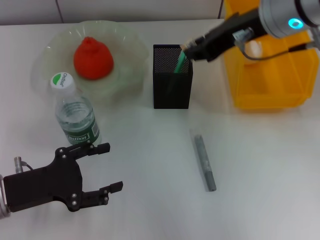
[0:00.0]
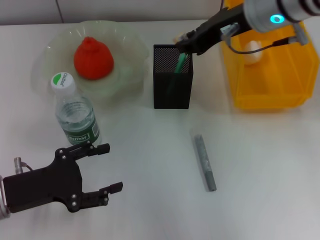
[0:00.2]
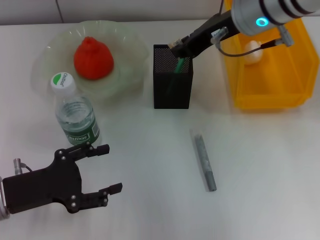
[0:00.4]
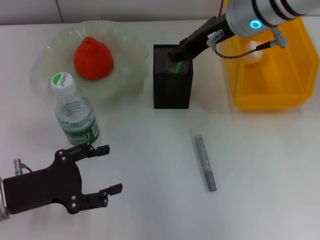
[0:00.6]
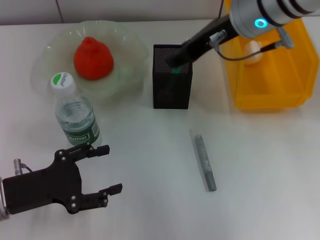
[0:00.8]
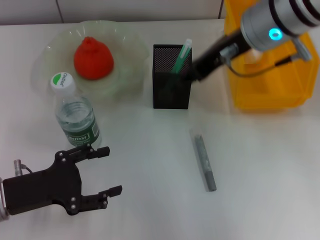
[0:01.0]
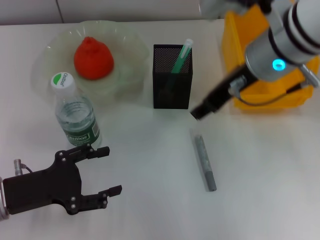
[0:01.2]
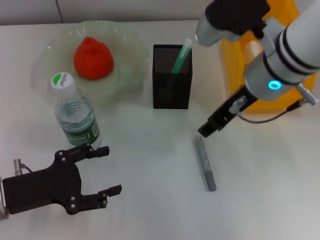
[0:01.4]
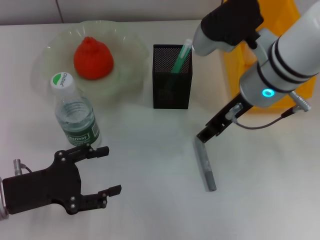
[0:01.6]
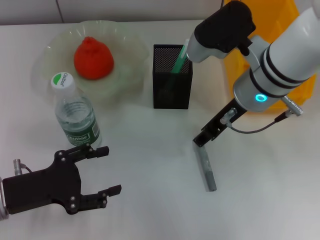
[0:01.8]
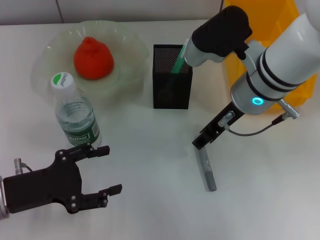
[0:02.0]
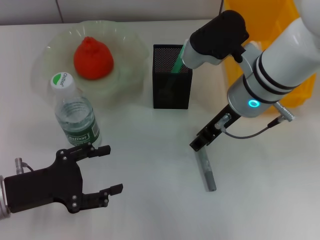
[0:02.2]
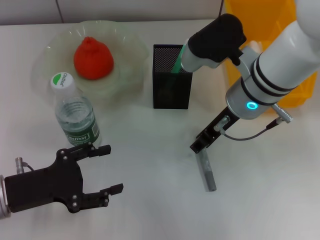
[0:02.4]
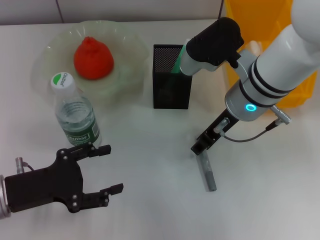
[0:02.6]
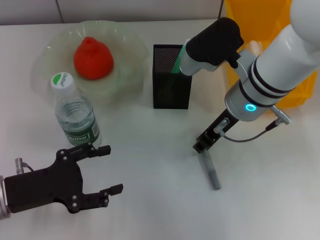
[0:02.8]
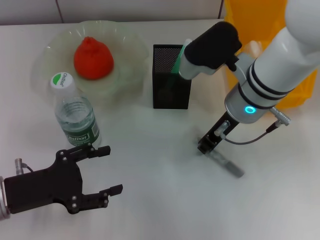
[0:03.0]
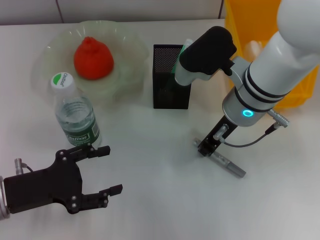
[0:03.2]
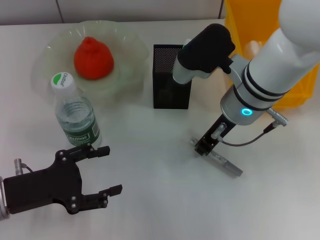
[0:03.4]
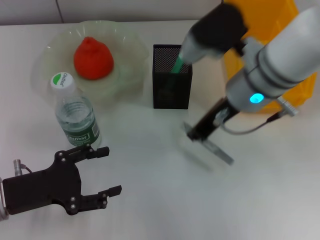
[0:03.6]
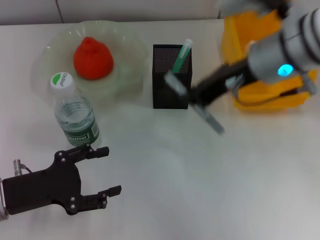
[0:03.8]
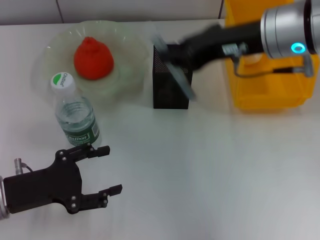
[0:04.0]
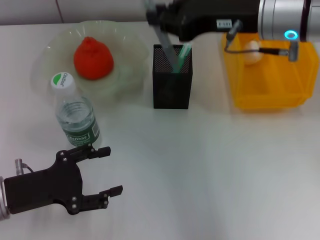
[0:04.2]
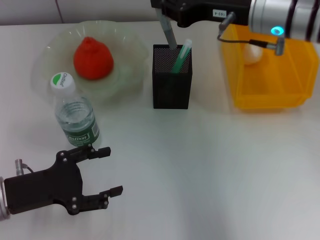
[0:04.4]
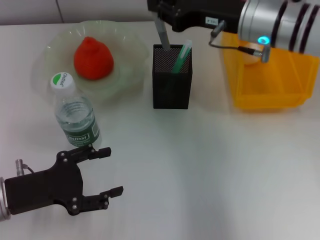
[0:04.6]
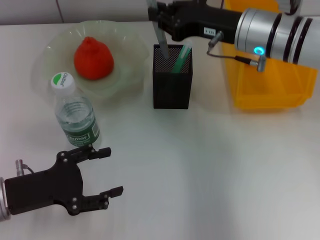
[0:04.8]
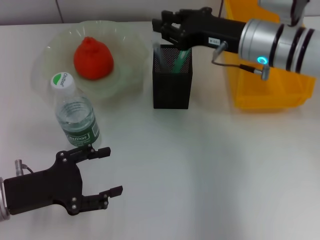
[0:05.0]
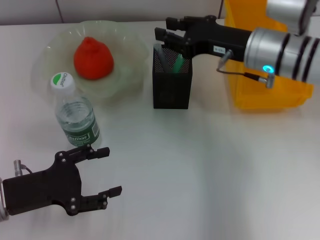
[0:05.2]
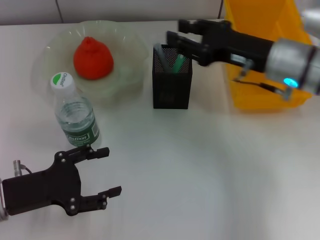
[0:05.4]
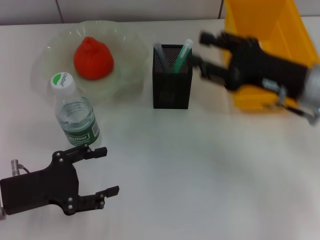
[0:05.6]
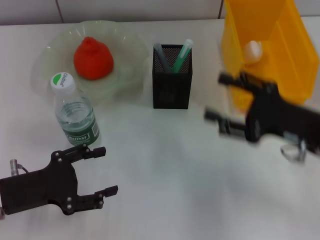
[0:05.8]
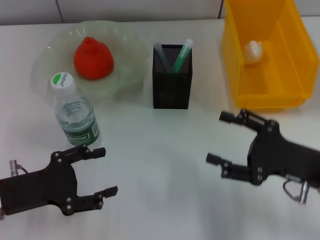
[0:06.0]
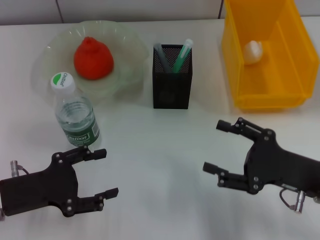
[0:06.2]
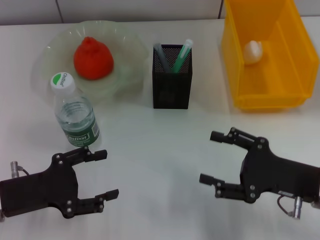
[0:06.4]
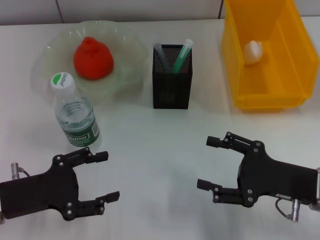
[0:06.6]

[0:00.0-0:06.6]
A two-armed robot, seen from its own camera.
Step, 0:00.8 to 0:03.2: Grab the gray glue with the right hand.
Step, 0:03.4 to 0:04.8: Place the gray glue into the pen holder with the right hand.
0:00.0 to 0:01.6: The right gripper heads downward, covering roughly 10 cm, and opens up.
0:01.6 to 0:03.2: The right gripper closes its fingers.
0:03.2 to 0:05.0: The right gripper is displaced to the right by about 5 cm, and reaches some 10 cm upward, then returns.
0:05.0 to 0:06.6: The right gripper heads backward, downward and to the right, covering approximately 20 cm, and opens up.

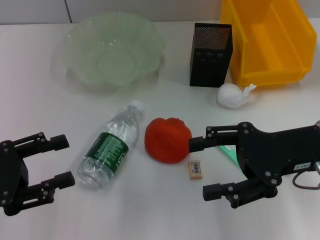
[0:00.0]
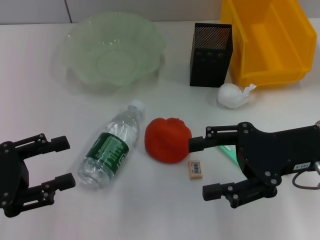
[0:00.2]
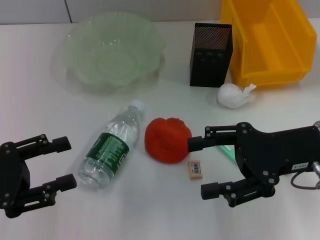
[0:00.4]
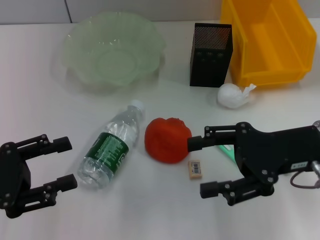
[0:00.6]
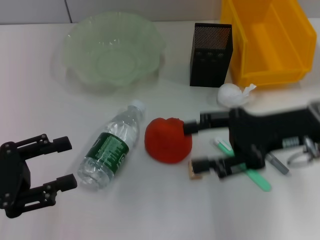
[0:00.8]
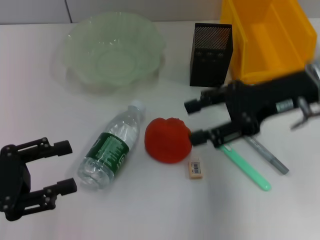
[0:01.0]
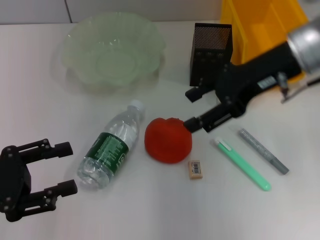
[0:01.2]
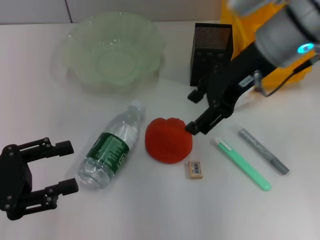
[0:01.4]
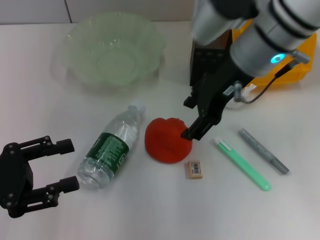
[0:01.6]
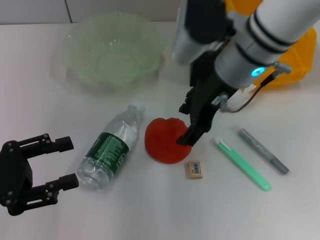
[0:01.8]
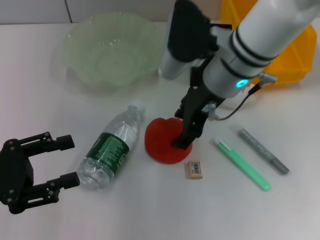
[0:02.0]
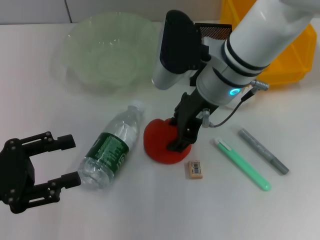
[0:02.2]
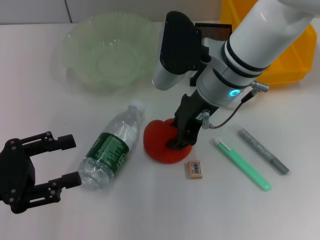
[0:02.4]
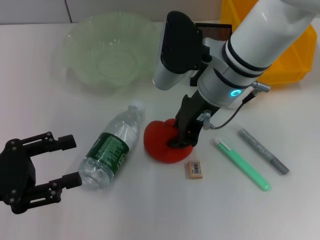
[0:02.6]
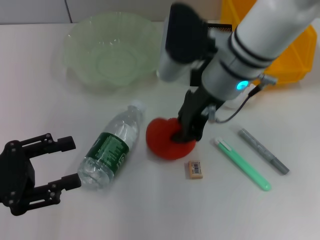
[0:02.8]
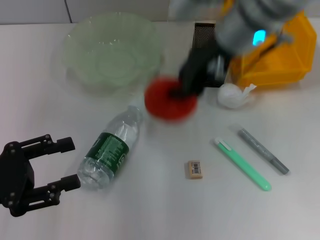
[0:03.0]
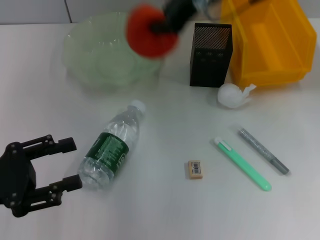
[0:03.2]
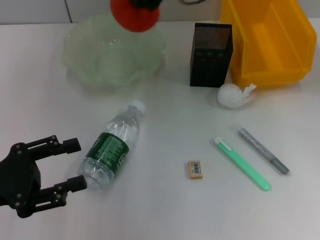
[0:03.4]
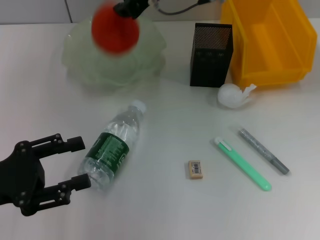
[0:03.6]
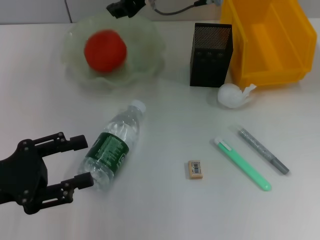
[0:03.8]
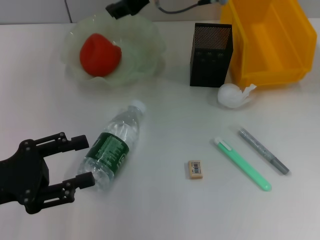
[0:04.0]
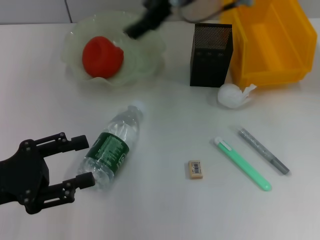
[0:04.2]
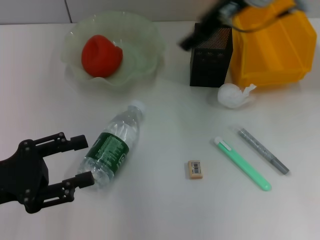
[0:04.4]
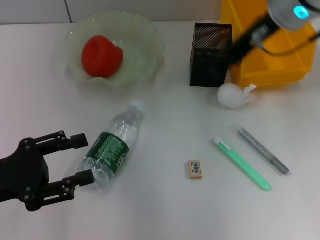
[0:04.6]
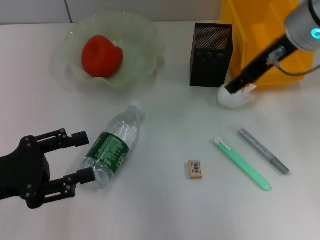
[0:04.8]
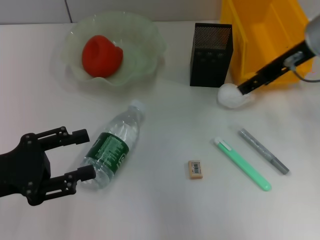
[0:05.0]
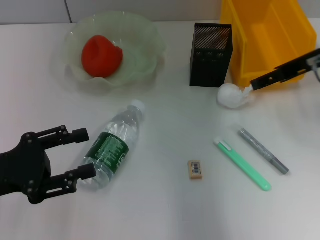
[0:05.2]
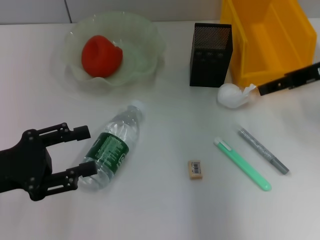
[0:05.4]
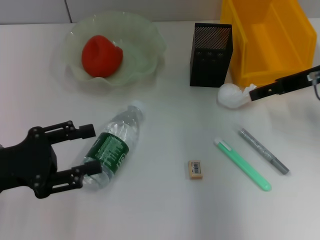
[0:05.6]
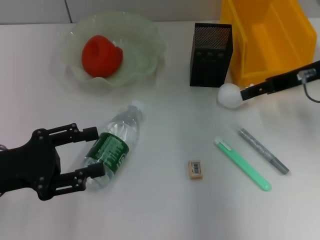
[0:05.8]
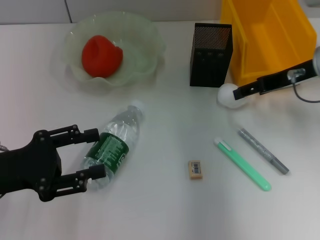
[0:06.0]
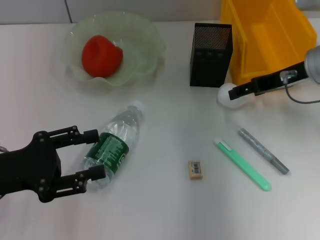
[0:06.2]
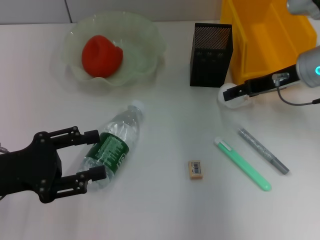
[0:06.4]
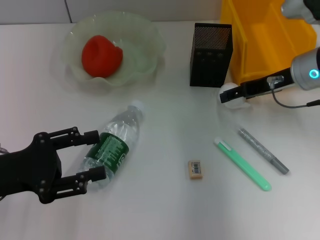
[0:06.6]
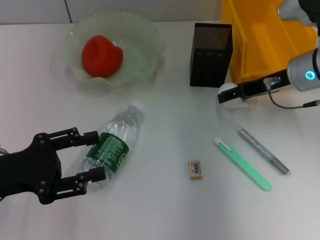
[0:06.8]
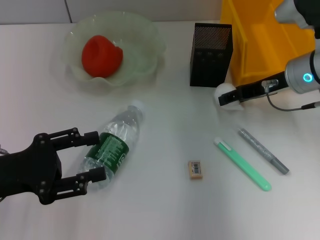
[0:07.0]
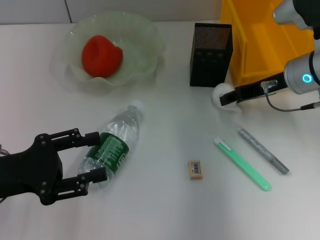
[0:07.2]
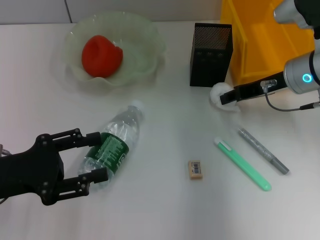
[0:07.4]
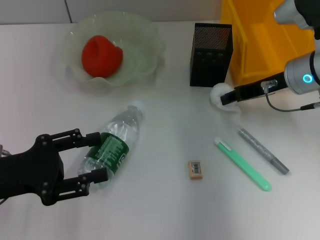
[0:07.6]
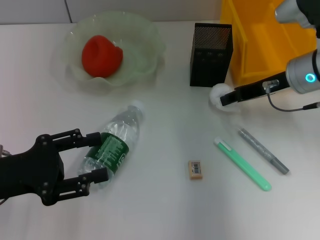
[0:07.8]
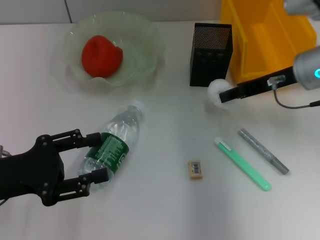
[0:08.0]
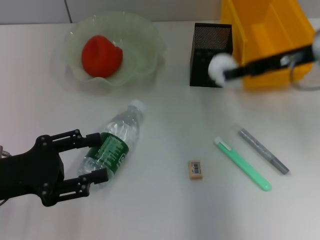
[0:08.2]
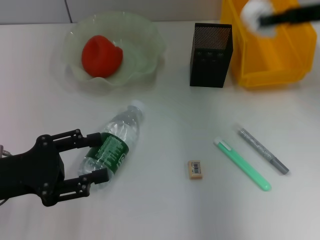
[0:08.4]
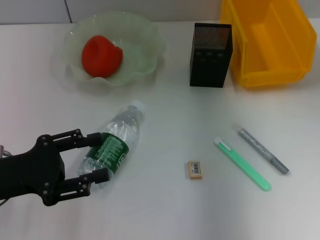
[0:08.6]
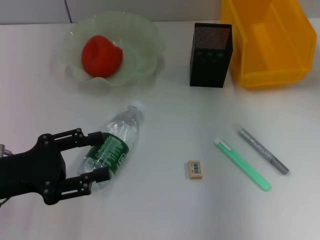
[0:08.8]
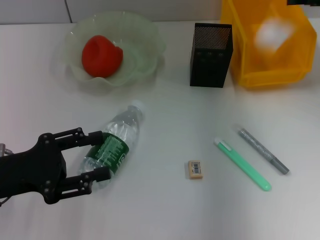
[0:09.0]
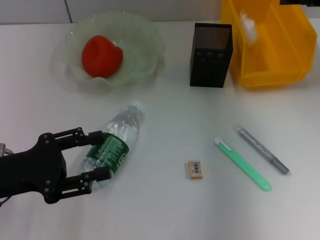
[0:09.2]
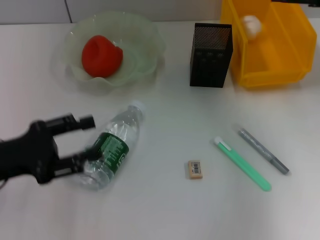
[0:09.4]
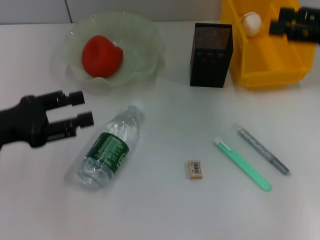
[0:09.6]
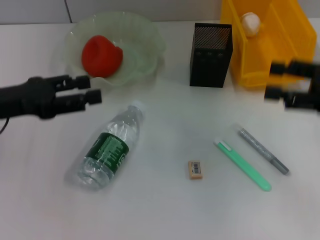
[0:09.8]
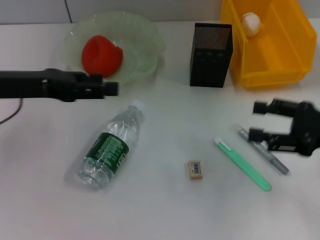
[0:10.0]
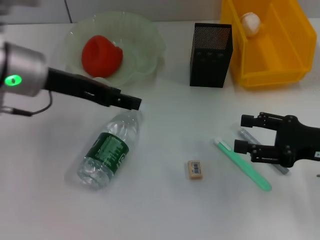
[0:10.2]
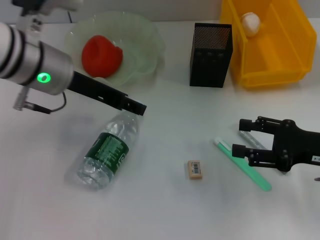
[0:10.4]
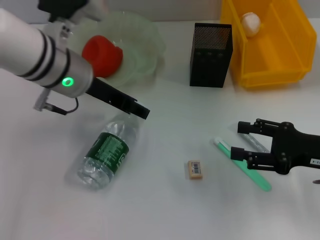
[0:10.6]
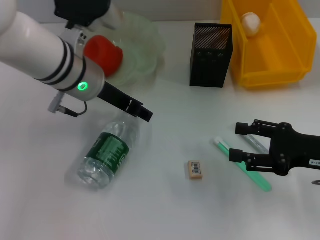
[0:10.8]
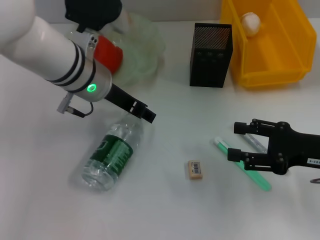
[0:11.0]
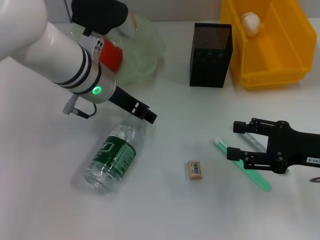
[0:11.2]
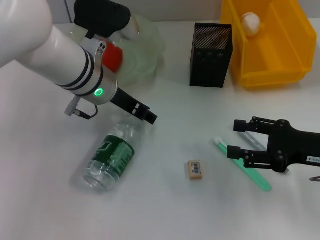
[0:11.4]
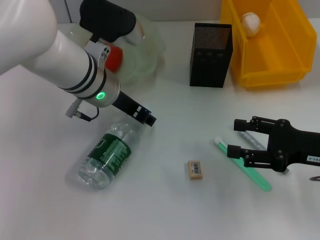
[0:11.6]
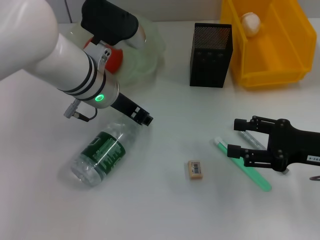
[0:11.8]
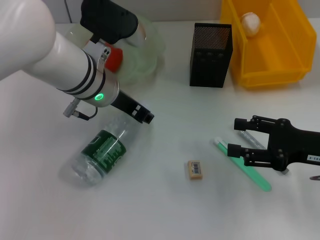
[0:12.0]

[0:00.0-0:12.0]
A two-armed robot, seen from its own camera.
Step, 0:00.0 to 0:02.6: Grab the orange with the right hand.
Step, 0:02.8 to 0:03.8: Place the orange into the fruit bowl with the right hand.
Step, 0:04.0 to 0:07.2: Grab the paper ball with the right hand.
Step, 0:07.4 to 0:09.2: Place the paper ball into the trash can with the right hand.
0:00.0 to 0:01.6: The right gripper heads to the left, forward and upward, covering approximately 15 cm.
0:01.6 to 0:03.0: The right gripper closes up.
0:03.0 to 0:04.4: The right gripper opens up.
0:04.4 to 0:06.0: The right gripper is displaced to the right and downward by approximately 15 cm.
0:06.0 to 0:07.6: The right gripper closes.
0:07.6 to 0:09.0: The right gripper moves upward and to the right, roughly 15 cm.
0:09.0 to 0:10.4: The left gripper goes some 20 cm forward, to the right and upward. The right gripper heads backward and downward, covering approximately 20 cm, and opens.
0:10.4 to 0:12.0: The left gripper shifts approximately 5 cm to the right.

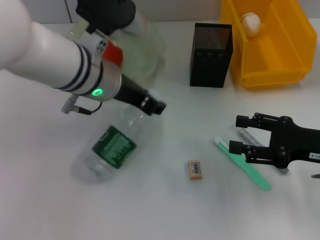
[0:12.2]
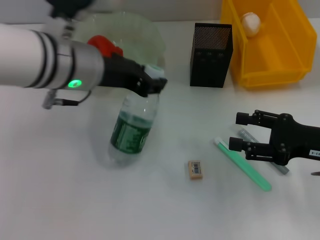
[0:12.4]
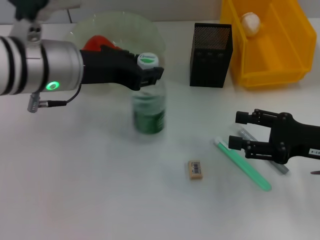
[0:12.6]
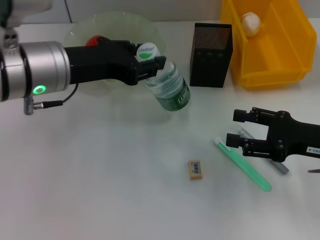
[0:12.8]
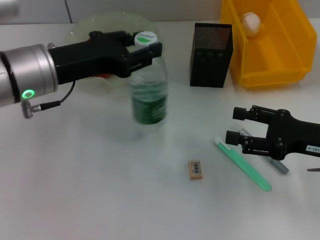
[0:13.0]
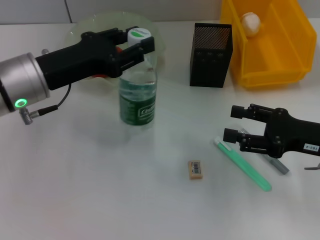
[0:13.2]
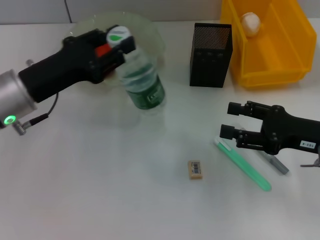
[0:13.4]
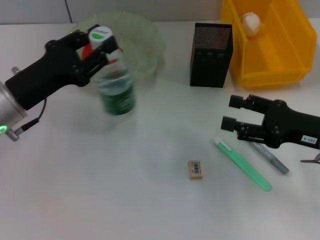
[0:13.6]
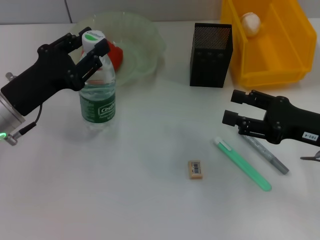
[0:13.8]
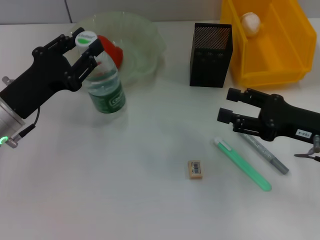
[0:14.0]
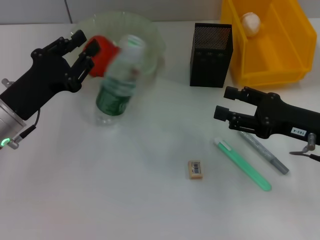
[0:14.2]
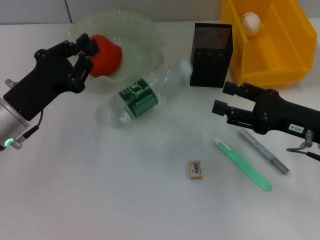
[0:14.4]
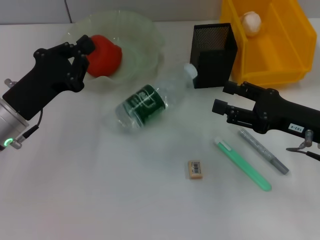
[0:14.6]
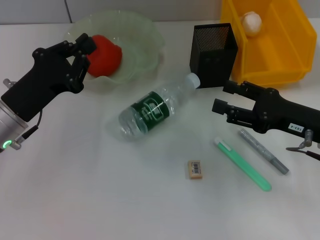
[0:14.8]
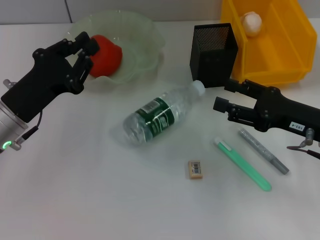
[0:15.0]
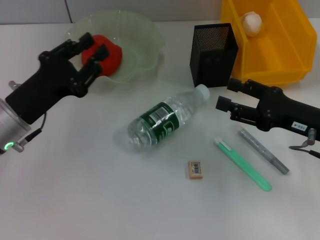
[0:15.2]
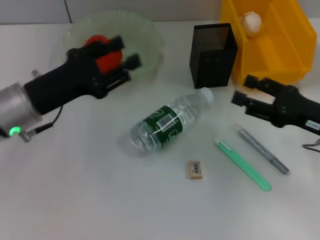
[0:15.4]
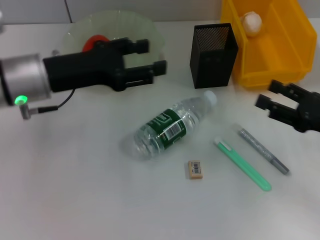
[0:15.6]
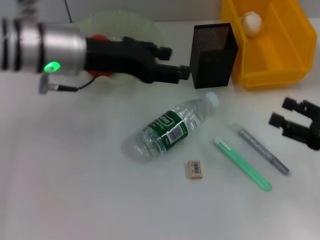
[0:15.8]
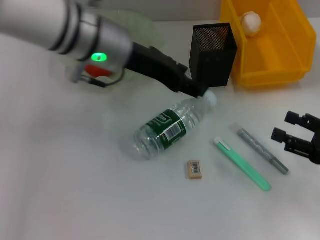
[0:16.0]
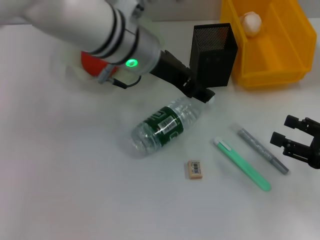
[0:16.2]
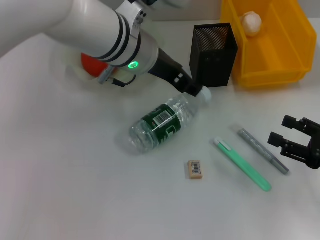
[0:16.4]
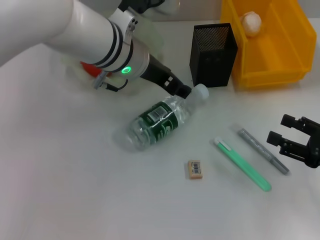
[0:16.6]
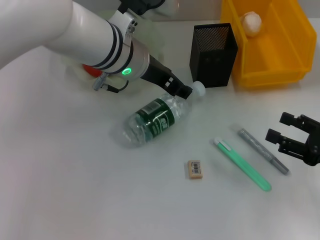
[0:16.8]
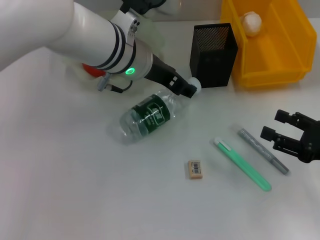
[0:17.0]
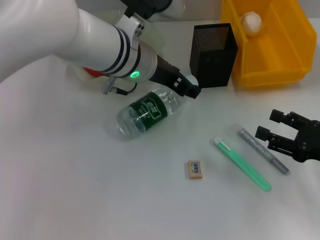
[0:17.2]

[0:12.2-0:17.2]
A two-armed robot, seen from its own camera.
0:12.2 to 0:13.8: The left gripper heads to the left, downward and backward, covering approximately 15 cm.
0:13.8 to 0:15.6: The left gripper moves upward, approximately 5 cm, and opens.
0:15.6 to 0:17.2: The left gripper travels to the right by about 15 cm.
